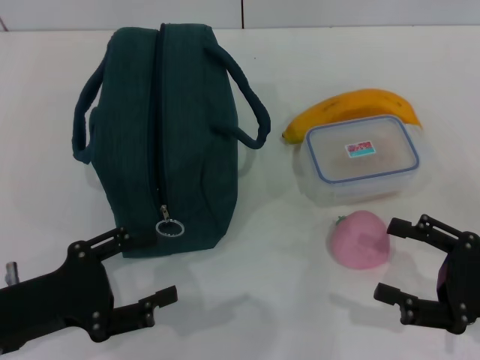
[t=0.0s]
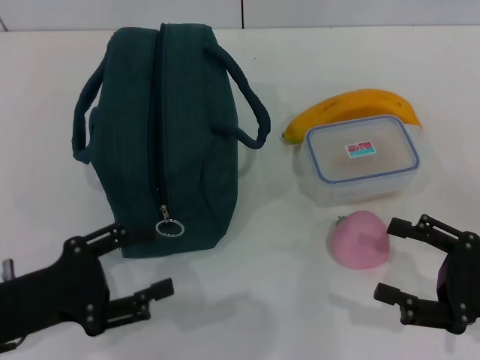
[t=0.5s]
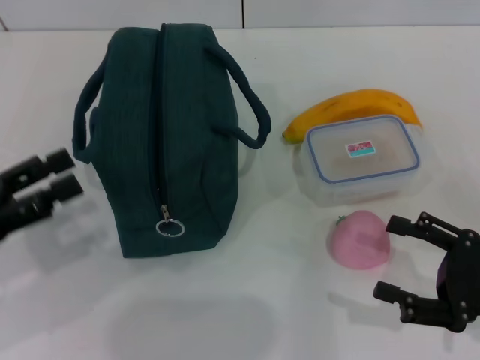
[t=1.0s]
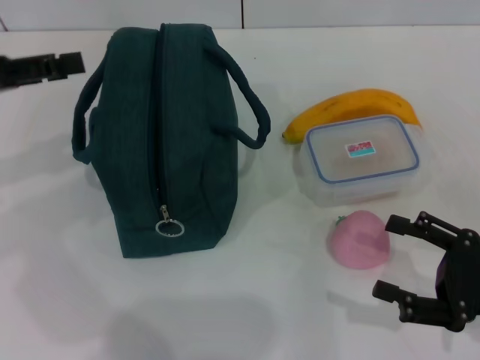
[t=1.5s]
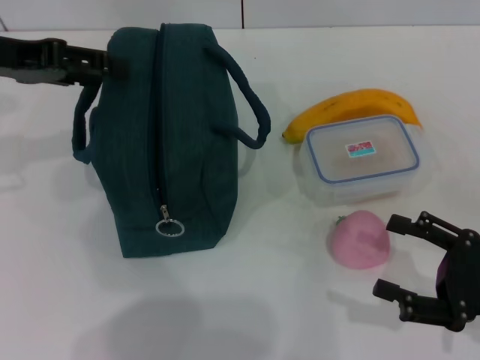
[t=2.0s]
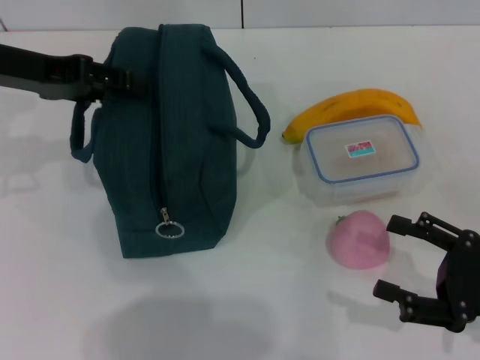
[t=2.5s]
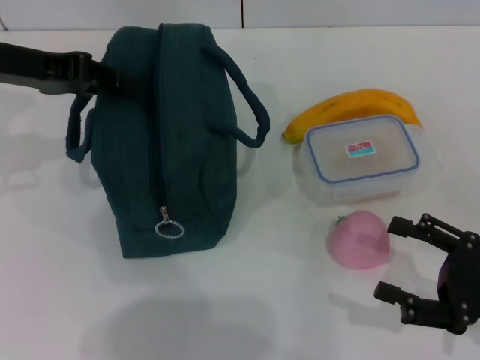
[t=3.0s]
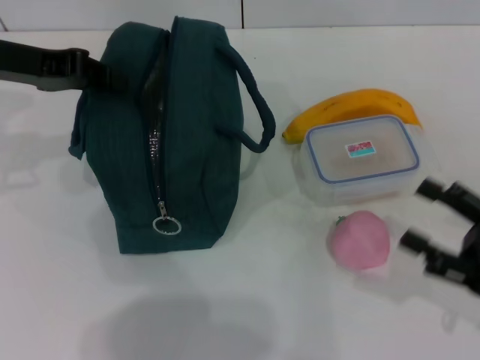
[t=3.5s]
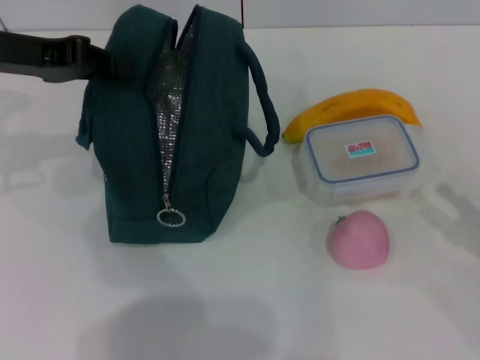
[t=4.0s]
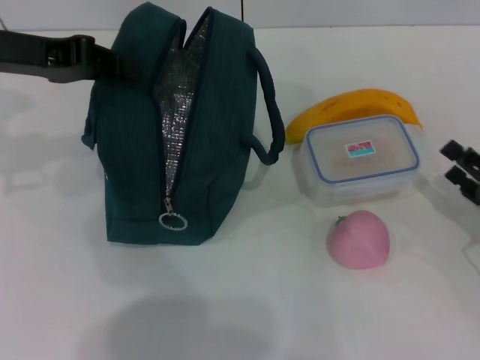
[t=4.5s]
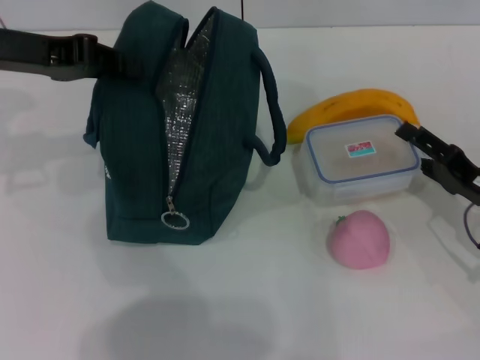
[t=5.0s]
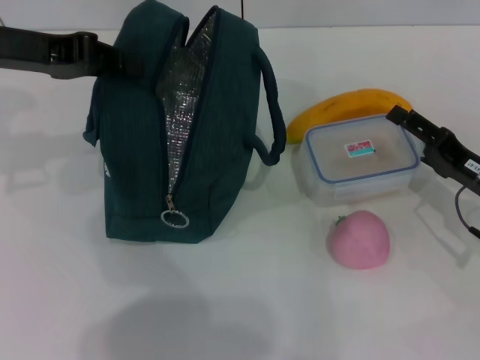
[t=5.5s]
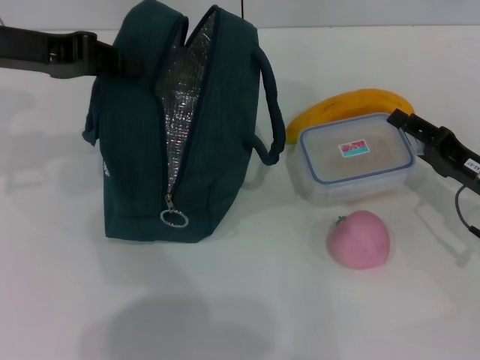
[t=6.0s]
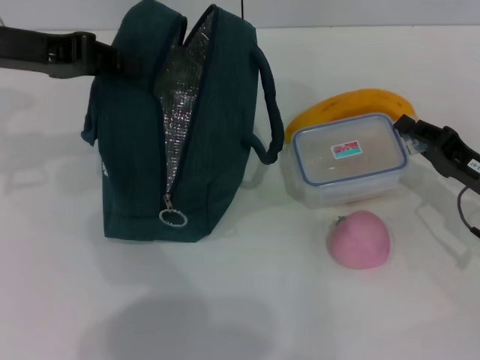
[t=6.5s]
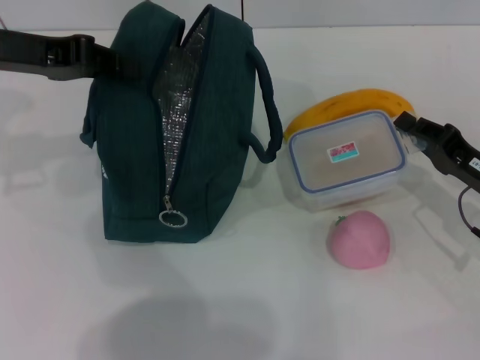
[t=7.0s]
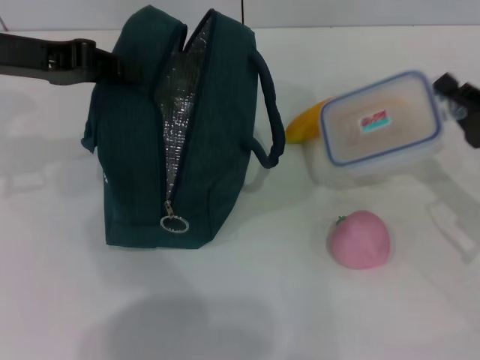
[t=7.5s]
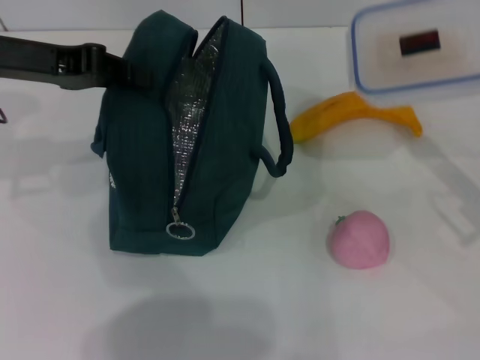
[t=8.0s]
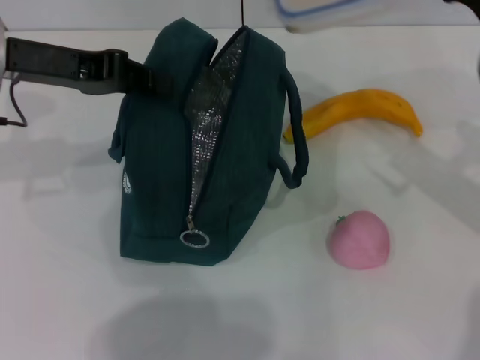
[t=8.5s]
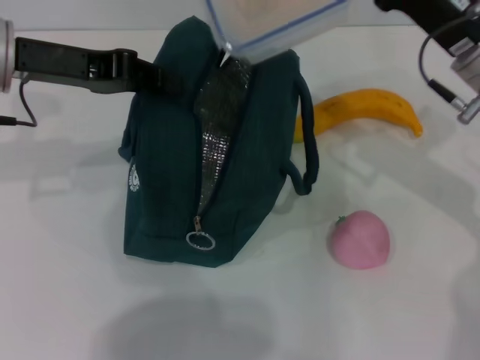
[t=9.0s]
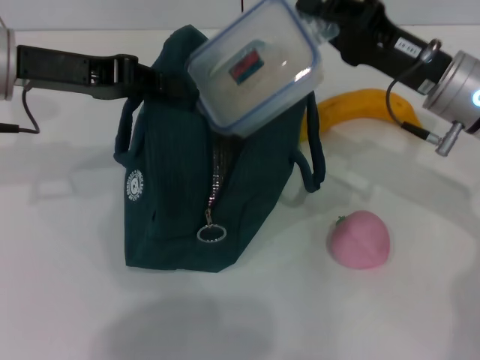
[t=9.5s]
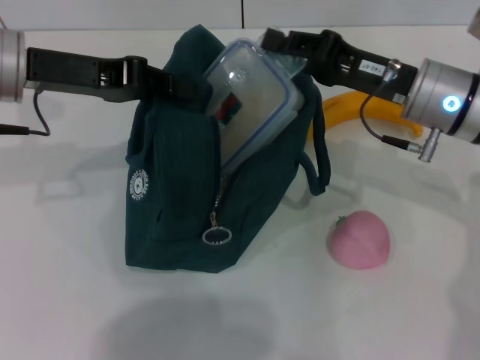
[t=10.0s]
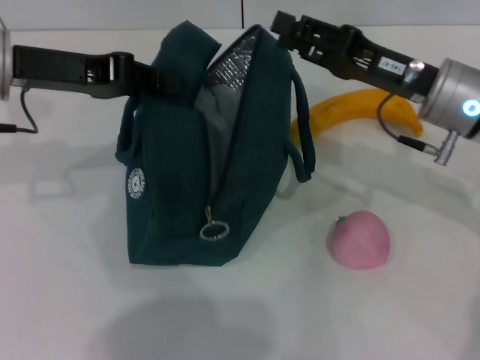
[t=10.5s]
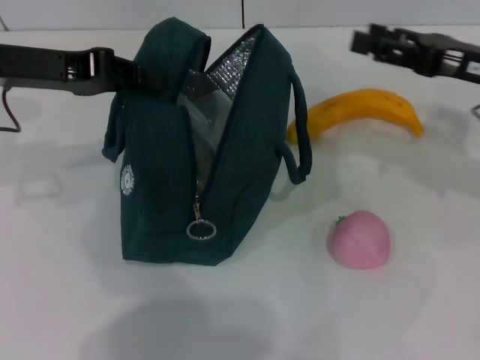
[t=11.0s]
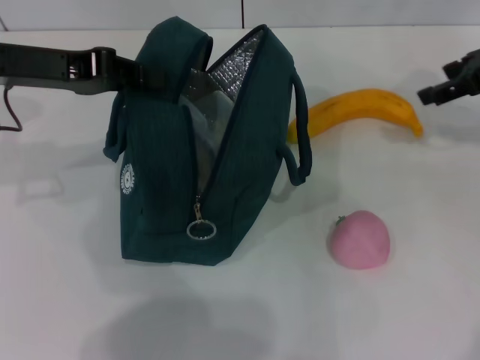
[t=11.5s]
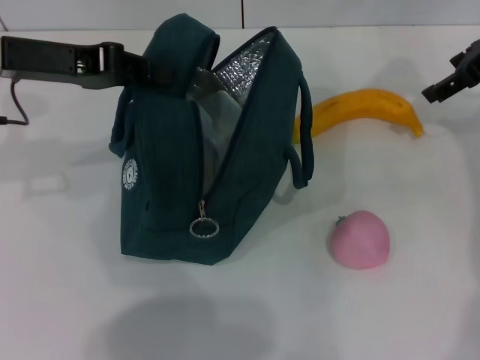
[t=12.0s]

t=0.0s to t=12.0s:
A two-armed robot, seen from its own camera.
Step, t=0.0s to t=3.0s: Hold the lunch bag with your left hand.
Step, t=3.5s to t=6.5s: Pick up the lunch box with your right hand.
Step, t=7.0s to t=10.0s: Place the lunch box into the lunch bag with your right hand.
t=0.0s to t=2.0s: The left gripper moves forward and upward, about 25 cm.
t=2.0s to t=4.0s: The left gripper closes its fingers.
t=4.0s to t=6.0s: The right gripper moves forward and to the left, roughly 10 cm.
t=6.0s to t=8.0s: The right gripper heads upward, covering about 5 cm, and closes up.
t=8.0s to t=10.0s: The right gripper goes approximately 15 cm to the left and forward.
t=10.0s to t=12.0s: The right gripper moves to the right, upward and forward, roughly 15 cm, and opens.

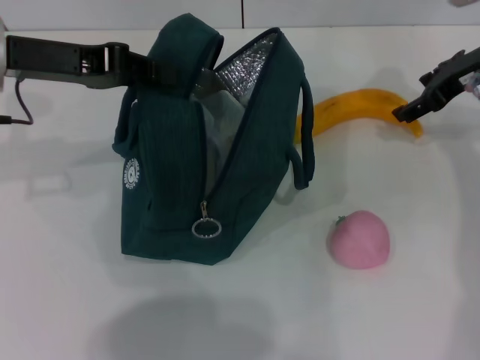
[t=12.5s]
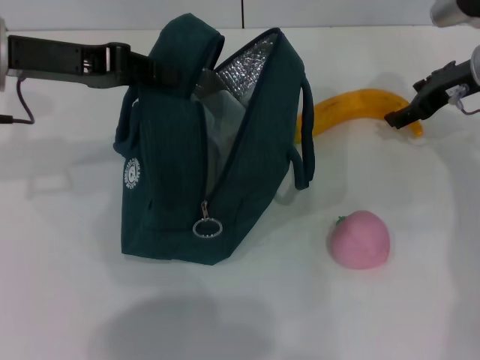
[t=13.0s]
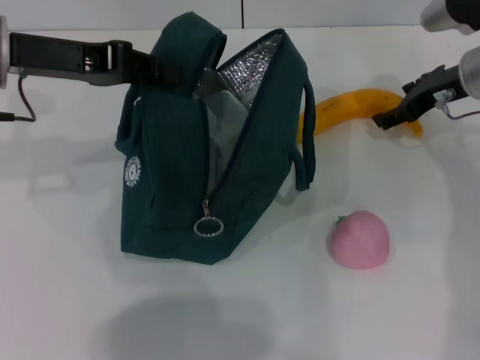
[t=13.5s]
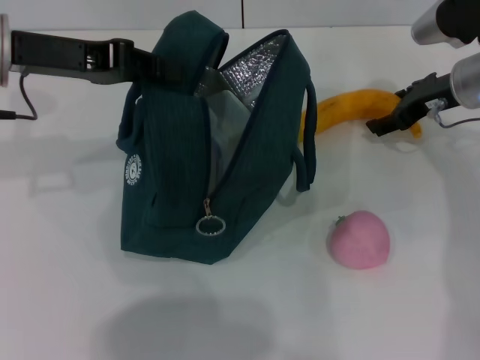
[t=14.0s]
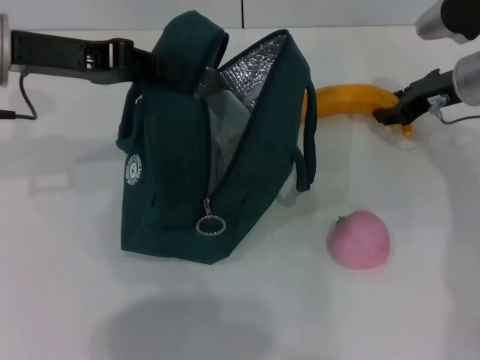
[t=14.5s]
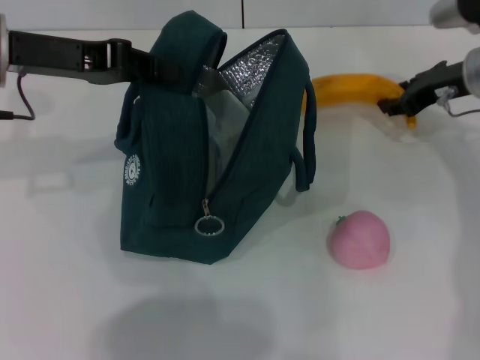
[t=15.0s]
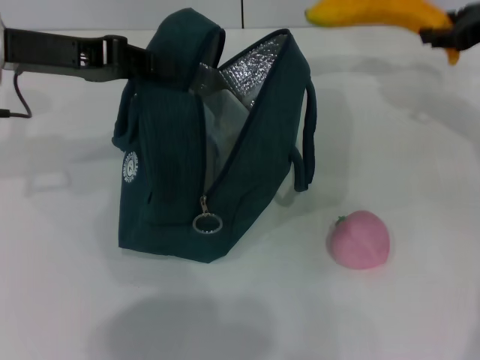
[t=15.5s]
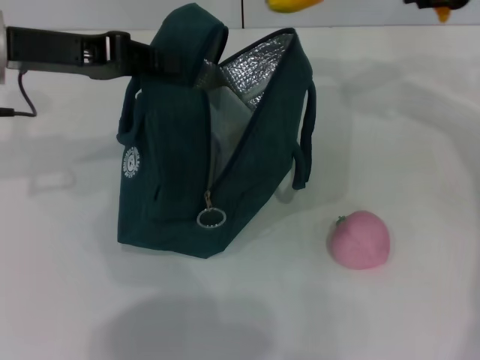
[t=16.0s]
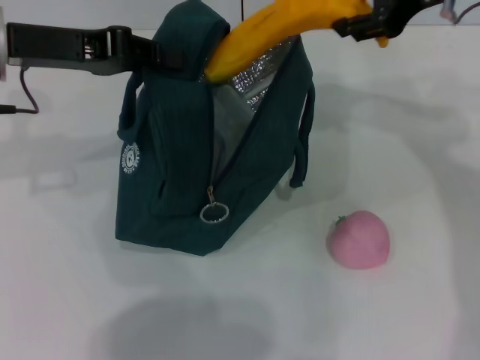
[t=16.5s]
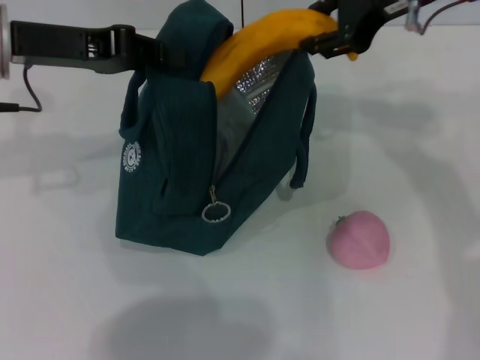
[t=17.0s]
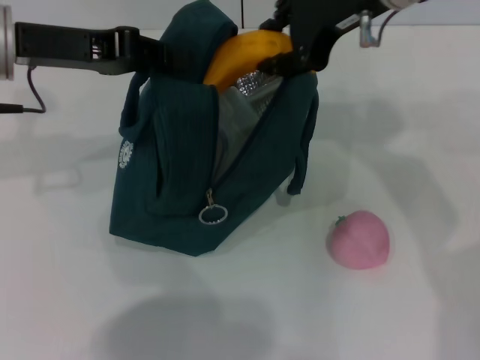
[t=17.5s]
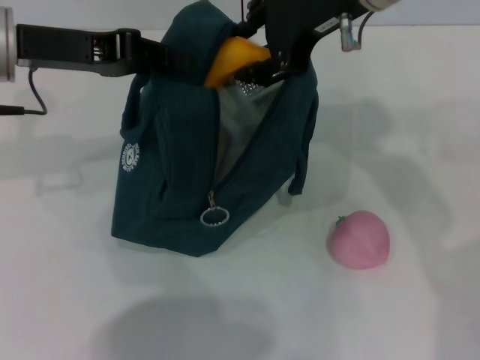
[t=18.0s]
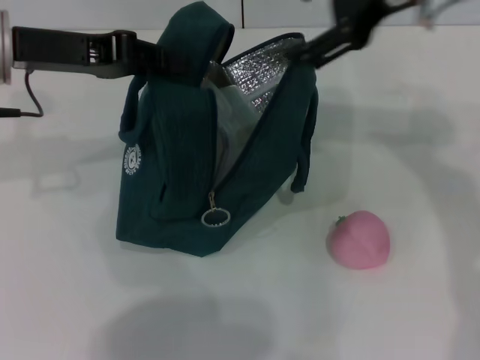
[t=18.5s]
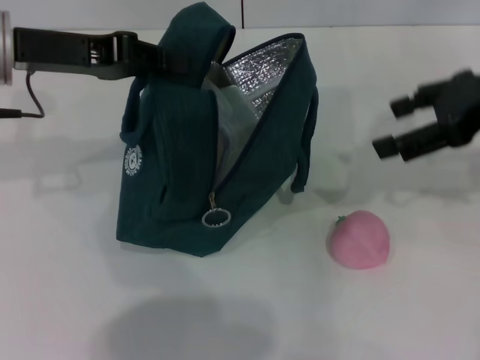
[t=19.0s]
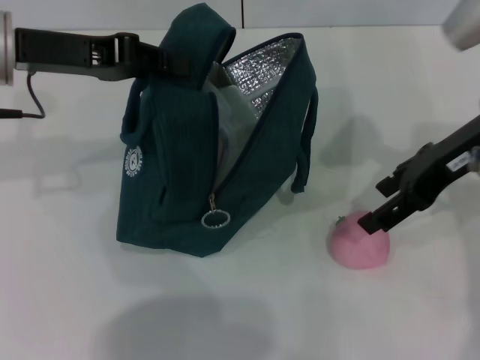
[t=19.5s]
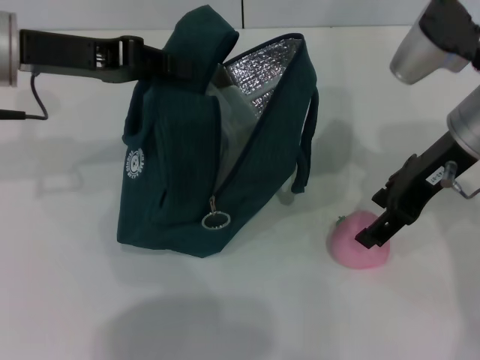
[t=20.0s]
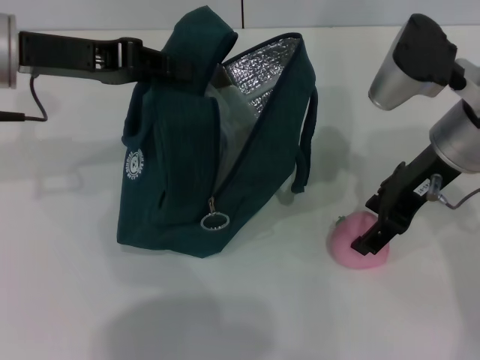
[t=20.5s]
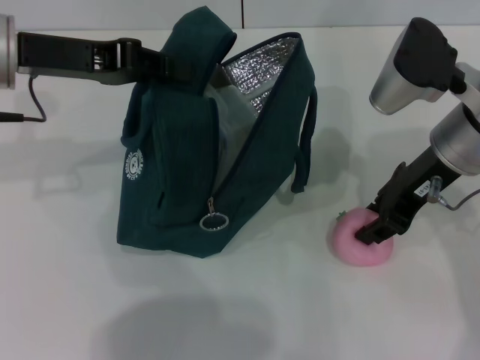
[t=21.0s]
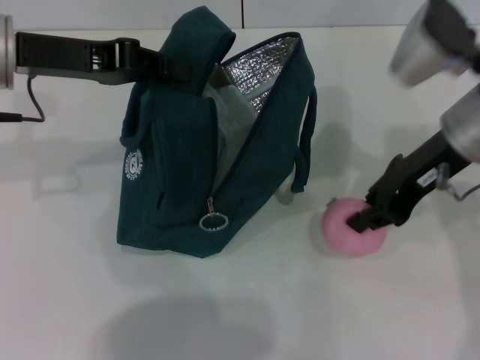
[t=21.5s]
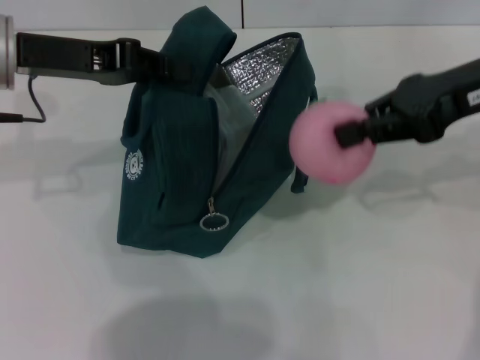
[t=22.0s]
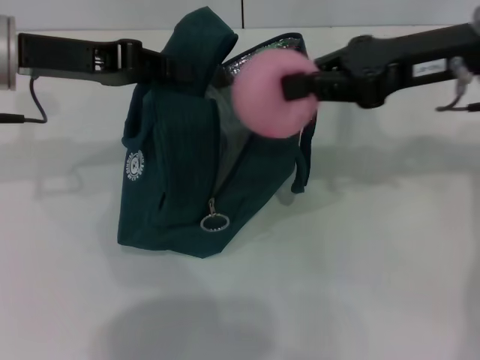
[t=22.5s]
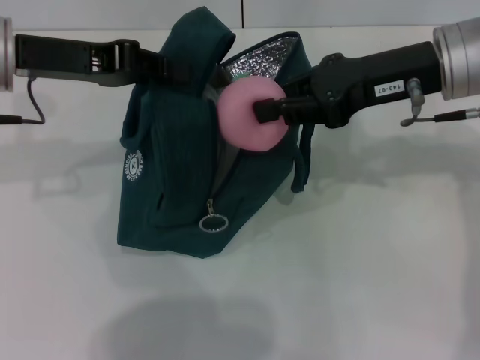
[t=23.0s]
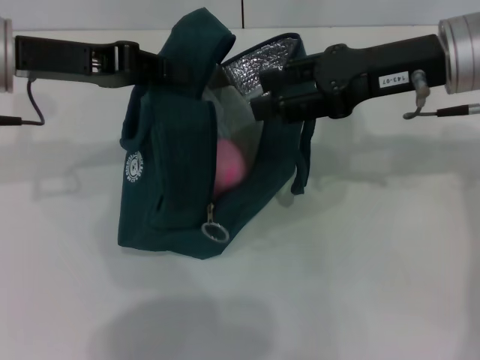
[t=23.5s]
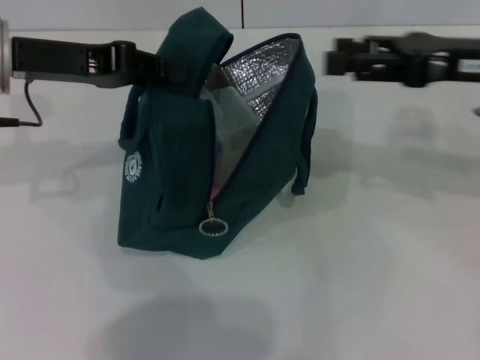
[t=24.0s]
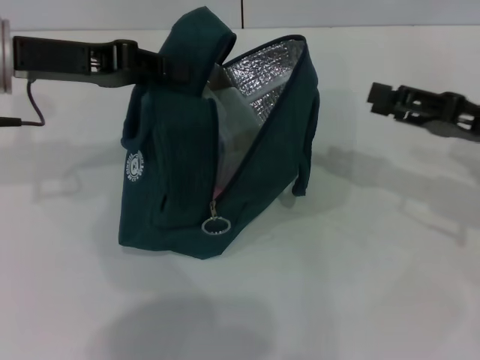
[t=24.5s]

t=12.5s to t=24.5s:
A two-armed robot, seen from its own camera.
Step, t=14.5s to t=18.0s: Put the banana into the lunch bag with your right hand.
Step, t=18.5s to t=21.0s: Grab the peach with your right hand.
t=12.5s to t=14.5s: The right gripper is displaced downward by approximately 5 cm, and closes.
t=14.5s to t=16.5s: The right gripper goes approximately 15 cm upward.
t=16.5s to t=18.5s: The right gripper moves approximately 10 cm to the left and comes back, and opens.
t=18.5s to t=20.5s: The right gripper shifts roughly 15 cm downward.
t=20.5s to t=22.5s: The right gripper moves upward, approximately 5 cm, and closes its fingers.
t=22.5s to t=24.5s: The right gripper goes about 15 cm downward and to the right, and opens its fingers.

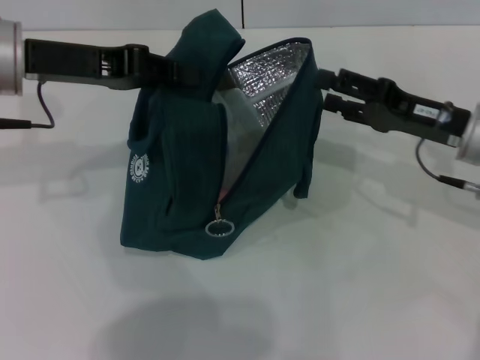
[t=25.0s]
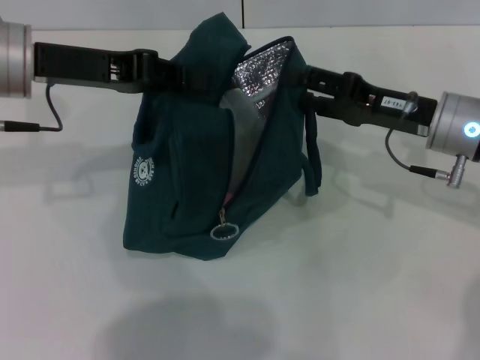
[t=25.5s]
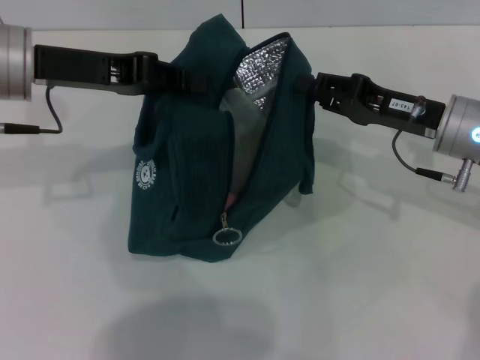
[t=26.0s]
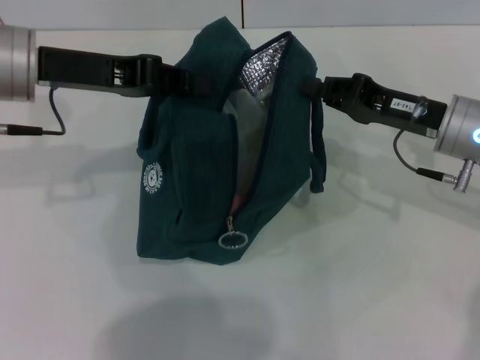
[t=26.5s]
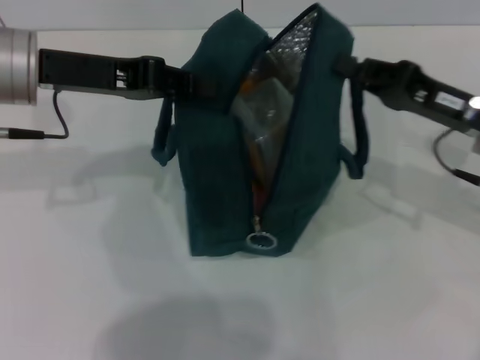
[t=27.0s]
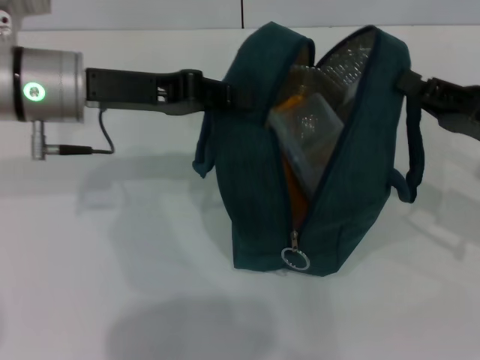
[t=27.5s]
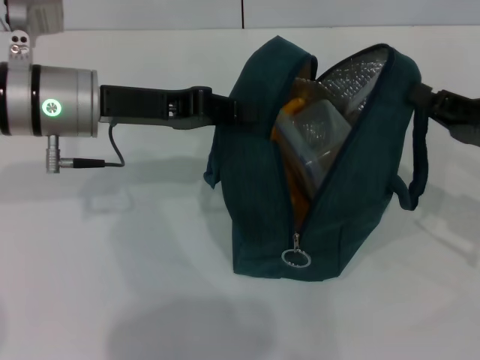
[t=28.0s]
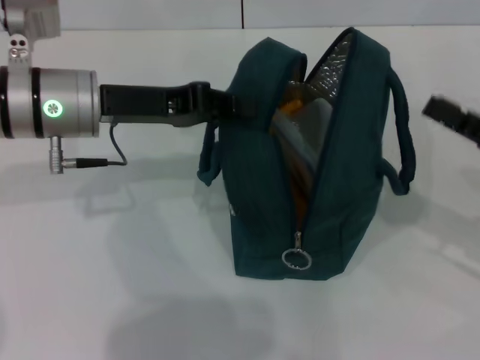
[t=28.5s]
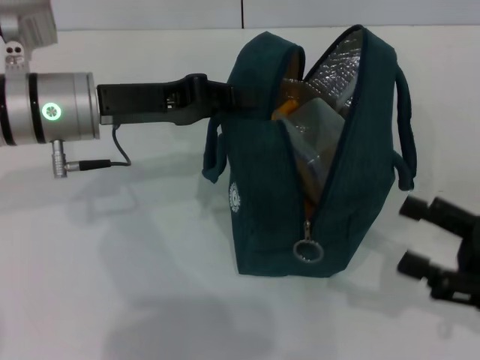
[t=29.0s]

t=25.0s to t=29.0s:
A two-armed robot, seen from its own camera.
Step, t=25.0s to t=28.0s: Hold the lunch bag with your right hand.
t=25.0s to t=27.0s: The right gripper closes up.
t=27.0s to t=29.0s: The left gripper heads downward, covering some 5 cm. The right gripper travels backward and to the right by roughly 15 cm, and opens.
